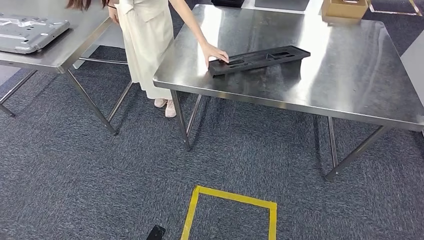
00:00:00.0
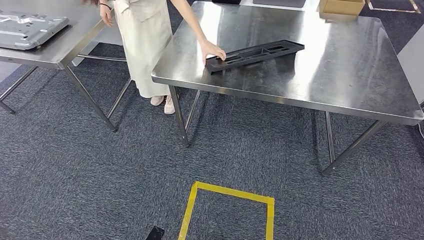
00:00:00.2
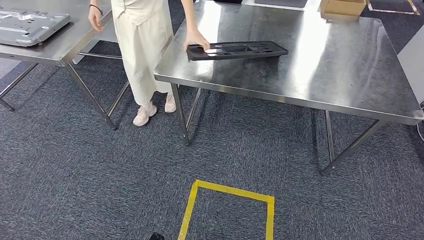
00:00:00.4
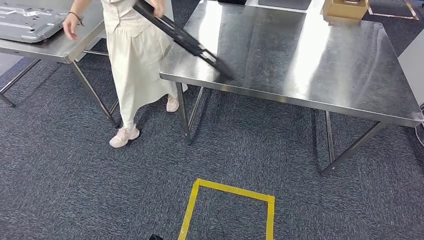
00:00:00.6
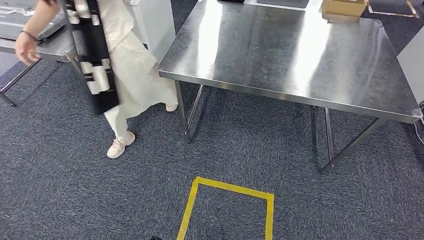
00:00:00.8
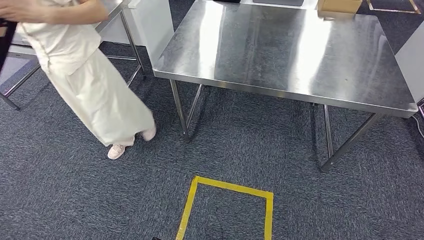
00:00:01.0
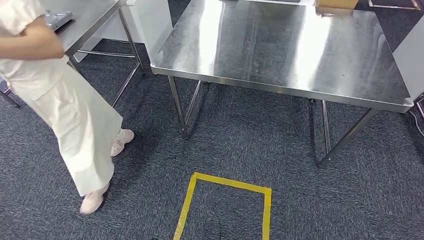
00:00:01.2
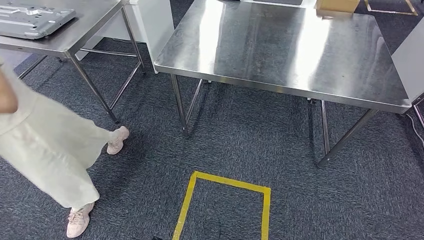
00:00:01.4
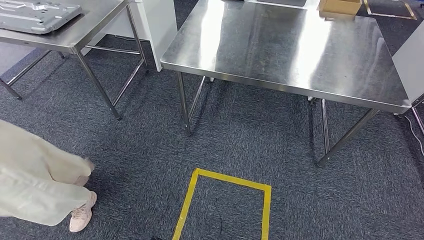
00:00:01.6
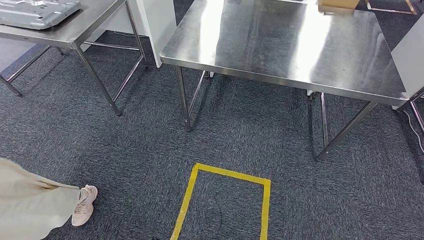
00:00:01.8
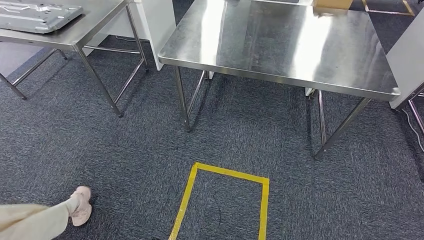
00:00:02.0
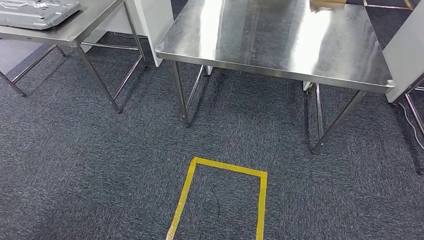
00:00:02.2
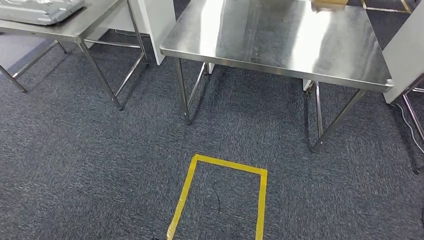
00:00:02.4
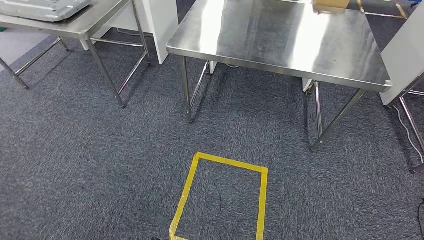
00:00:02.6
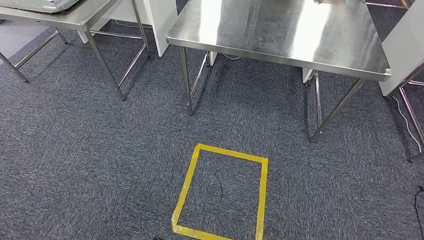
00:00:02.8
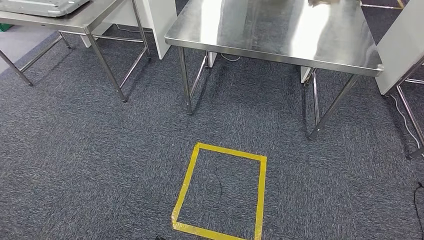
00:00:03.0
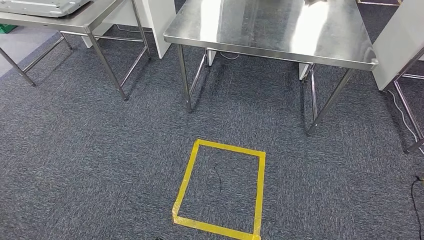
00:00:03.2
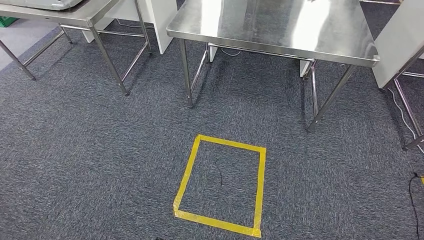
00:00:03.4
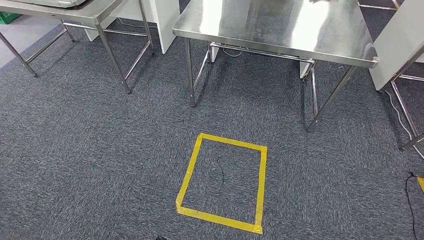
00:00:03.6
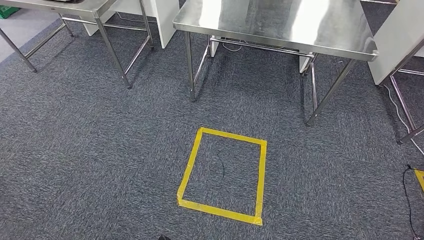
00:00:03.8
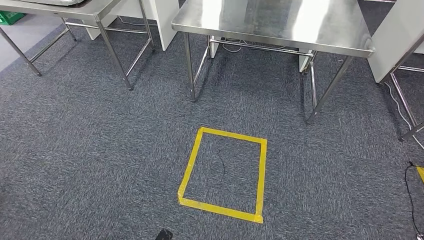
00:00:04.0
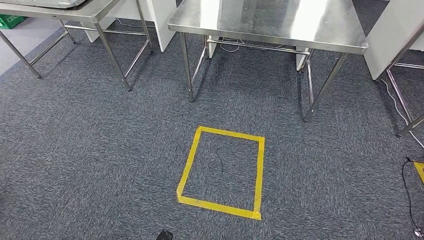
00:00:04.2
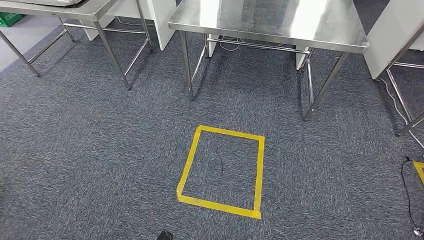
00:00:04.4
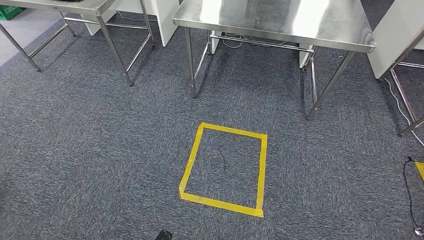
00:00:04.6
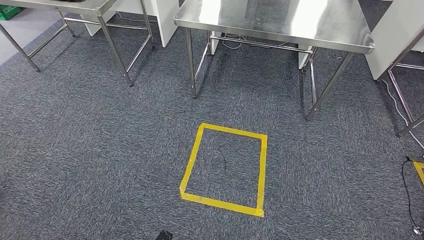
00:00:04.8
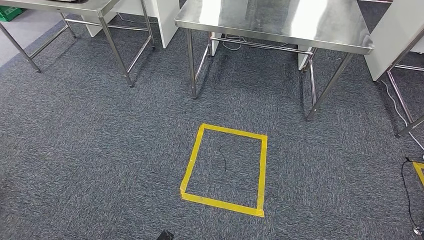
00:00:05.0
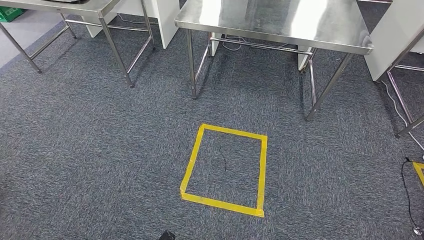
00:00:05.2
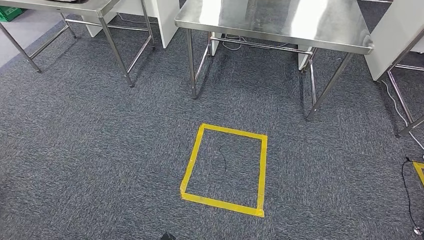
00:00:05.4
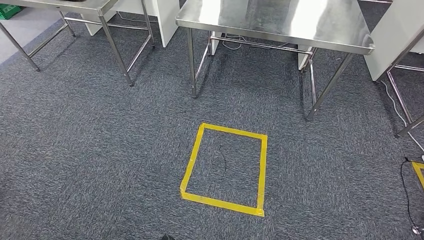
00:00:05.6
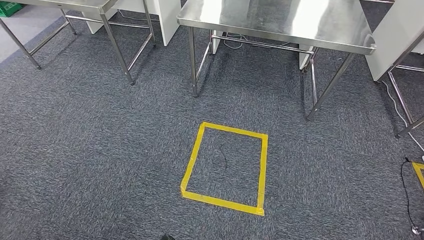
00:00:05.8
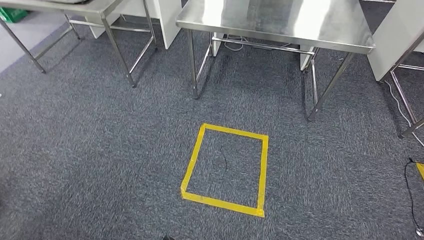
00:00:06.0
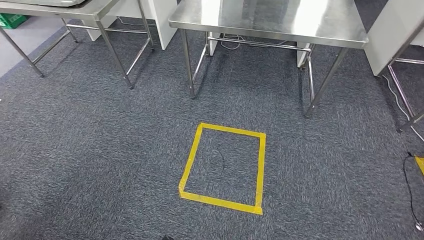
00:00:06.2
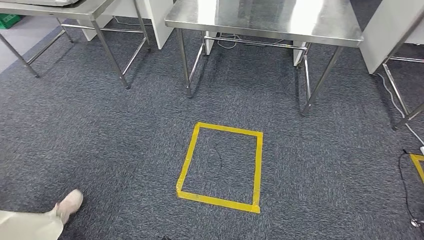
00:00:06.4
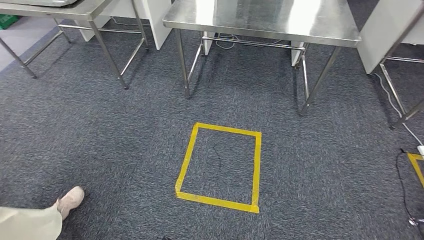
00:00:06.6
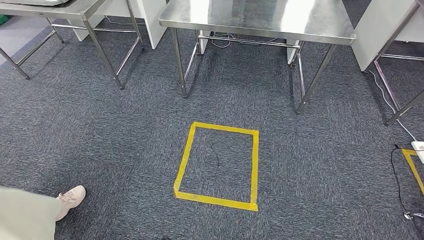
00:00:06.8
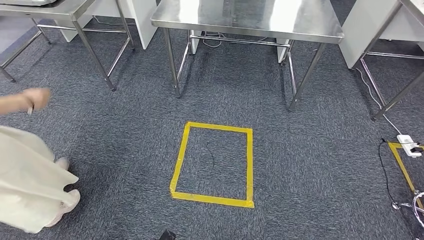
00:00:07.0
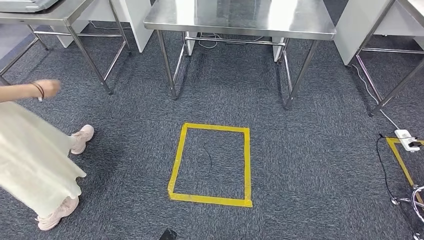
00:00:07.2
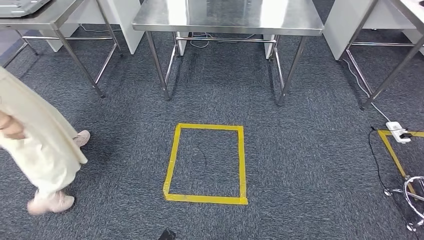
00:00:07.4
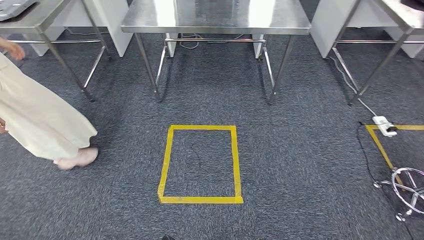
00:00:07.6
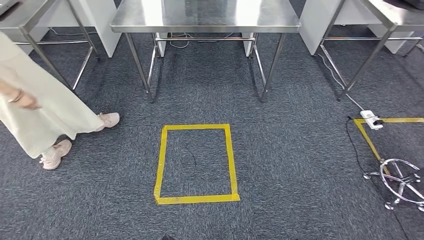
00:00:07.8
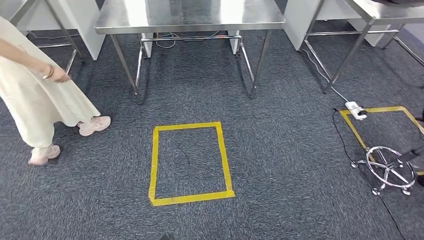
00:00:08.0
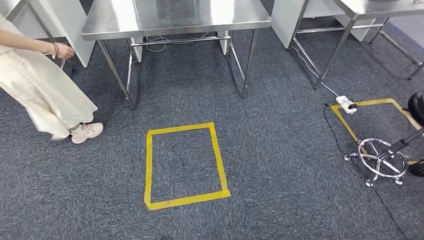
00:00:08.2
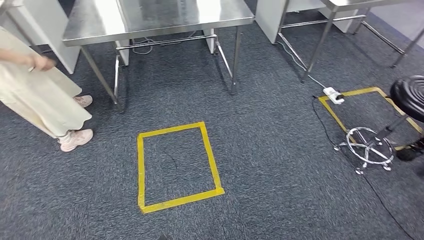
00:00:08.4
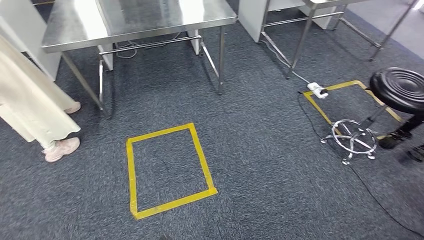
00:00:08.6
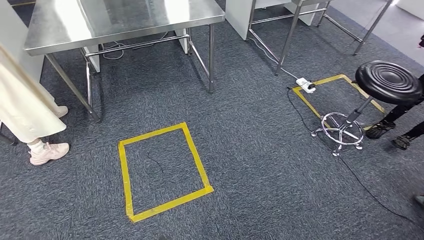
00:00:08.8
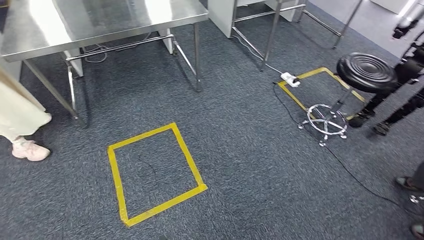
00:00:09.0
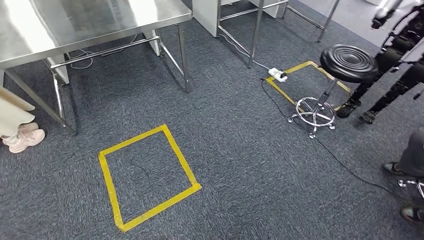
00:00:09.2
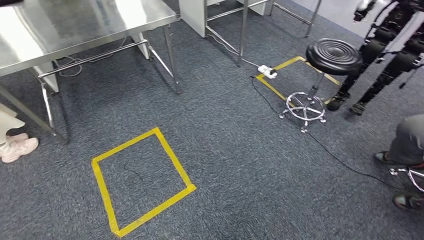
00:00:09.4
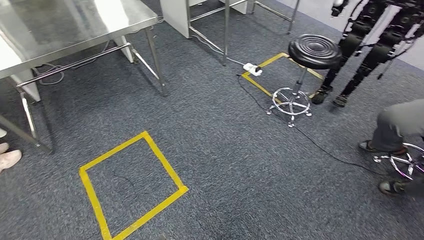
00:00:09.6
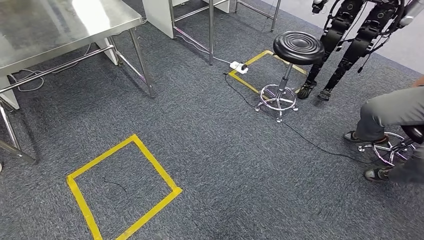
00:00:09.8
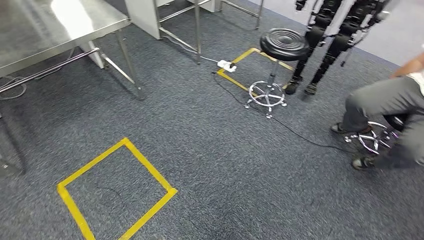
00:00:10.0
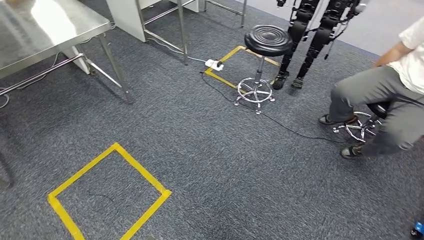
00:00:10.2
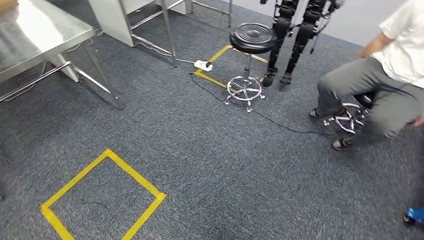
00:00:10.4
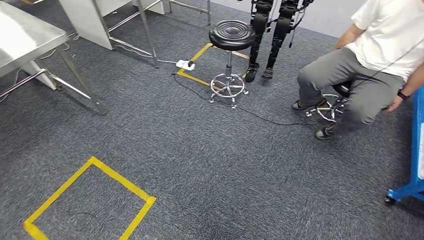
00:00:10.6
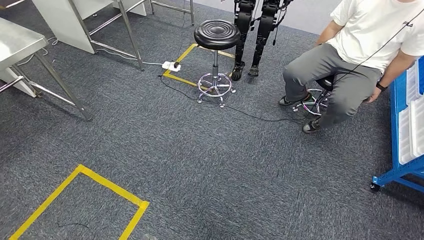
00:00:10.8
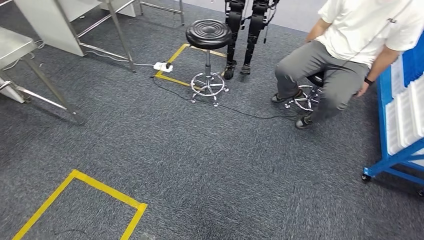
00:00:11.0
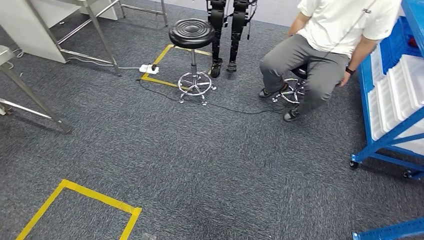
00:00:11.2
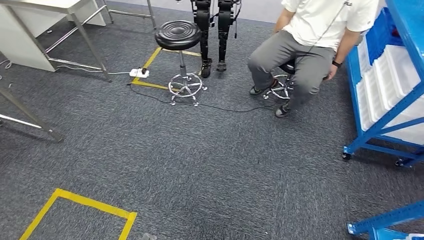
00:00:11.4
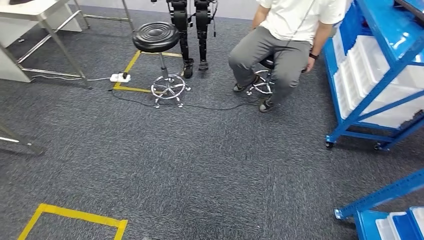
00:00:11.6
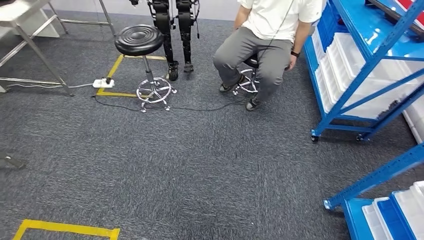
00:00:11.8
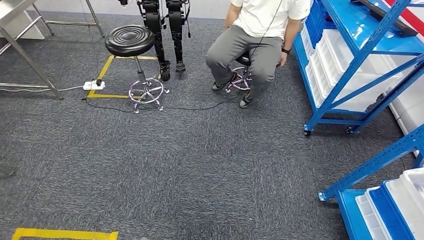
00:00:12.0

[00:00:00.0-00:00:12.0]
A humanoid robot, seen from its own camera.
00:00:04.4 to 00:00:06.0: The hands make only small movements.

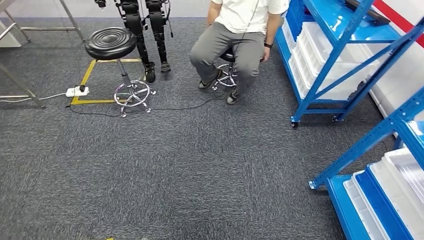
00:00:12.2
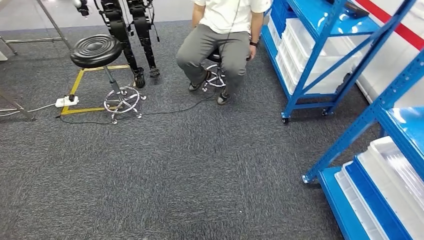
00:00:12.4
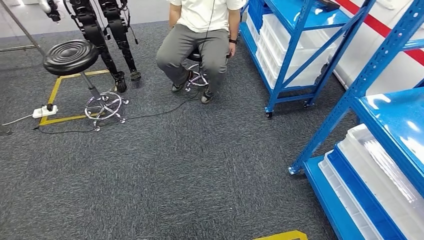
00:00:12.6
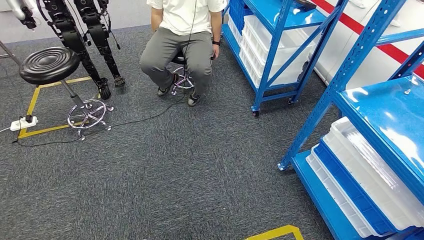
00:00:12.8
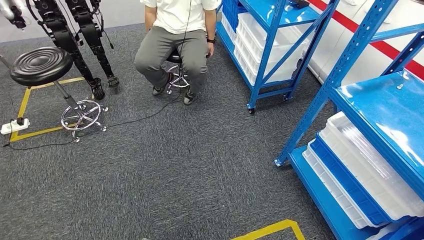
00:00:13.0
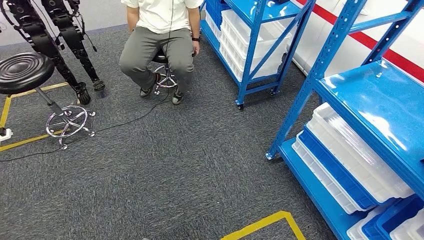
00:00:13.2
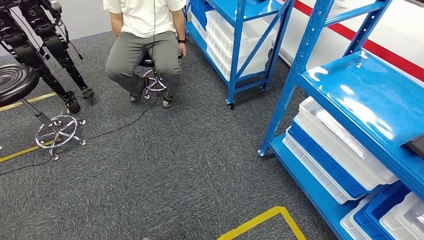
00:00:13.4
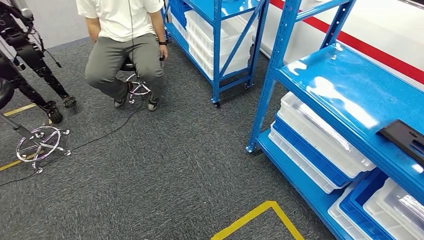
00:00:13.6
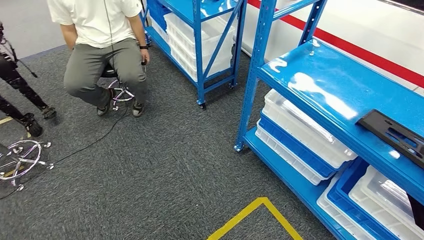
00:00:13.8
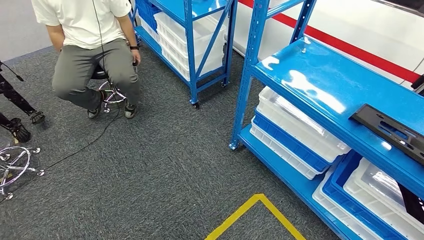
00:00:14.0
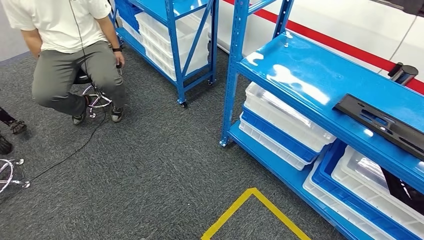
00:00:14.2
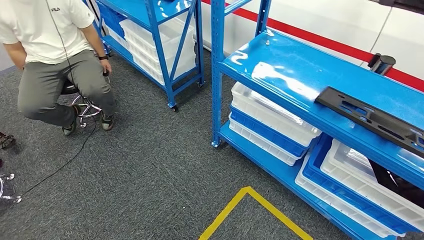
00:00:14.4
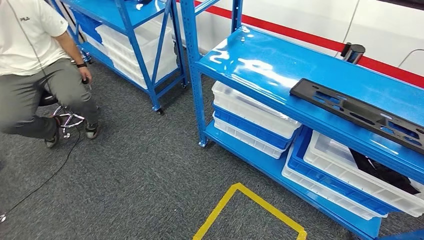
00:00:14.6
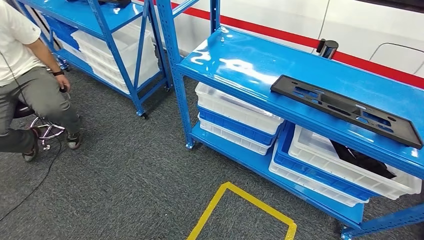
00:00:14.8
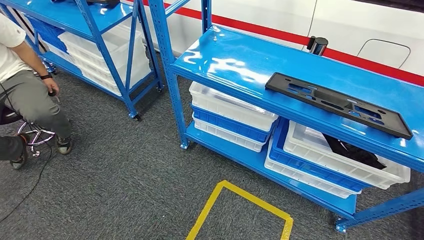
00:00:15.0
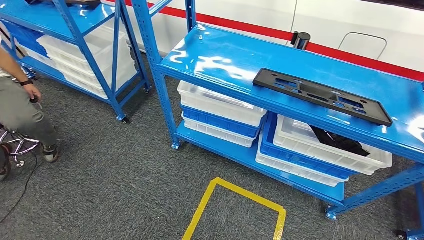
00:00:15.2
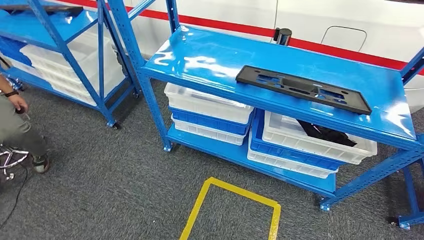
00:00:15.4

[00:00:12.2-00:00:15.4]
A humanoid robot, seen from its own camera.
Step, 00:00:12.2 to 00:00:15.2: Return to the initial position at the shelf.
